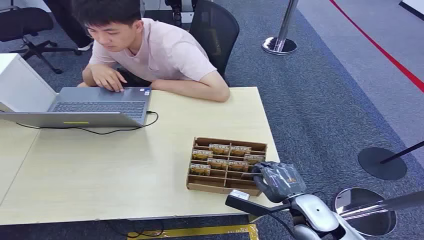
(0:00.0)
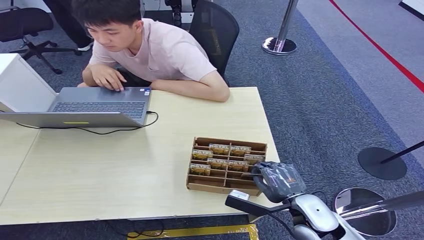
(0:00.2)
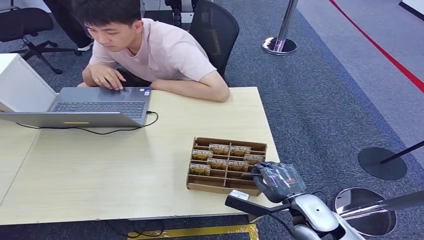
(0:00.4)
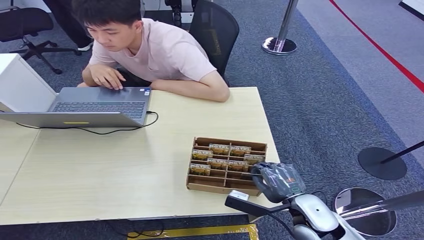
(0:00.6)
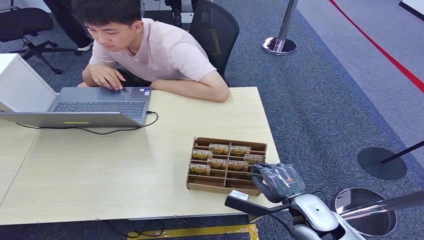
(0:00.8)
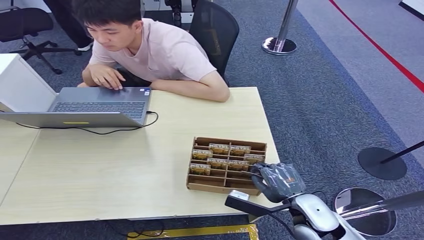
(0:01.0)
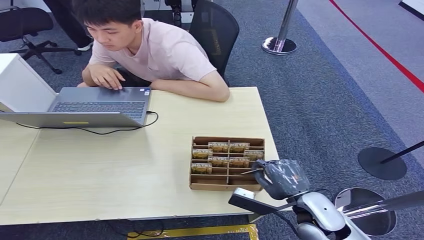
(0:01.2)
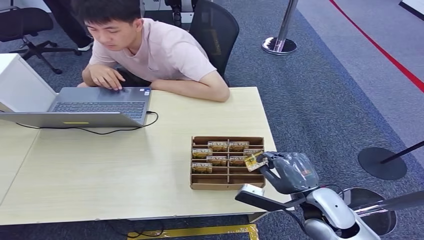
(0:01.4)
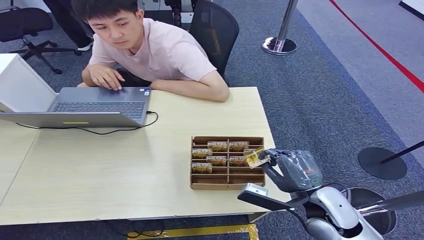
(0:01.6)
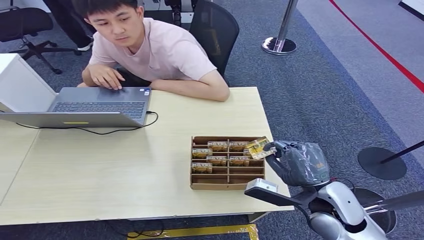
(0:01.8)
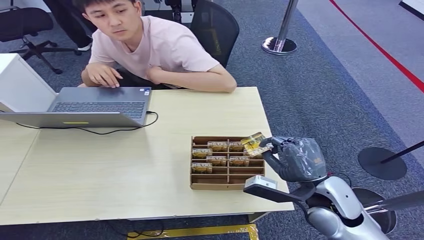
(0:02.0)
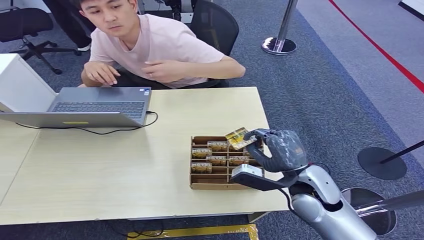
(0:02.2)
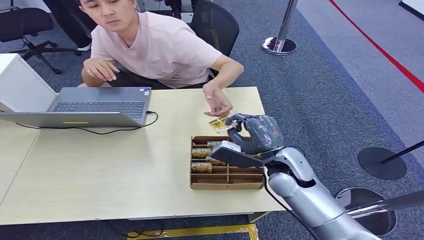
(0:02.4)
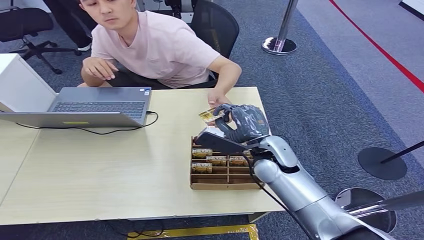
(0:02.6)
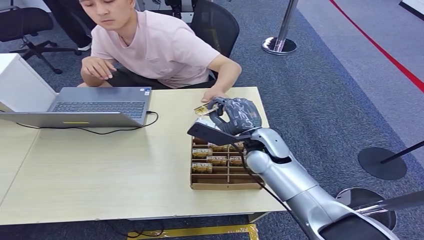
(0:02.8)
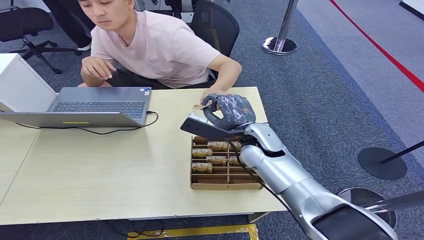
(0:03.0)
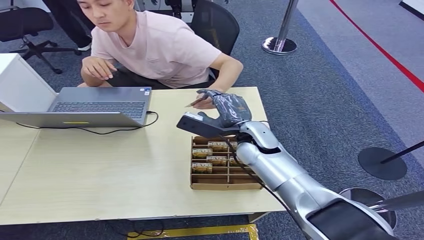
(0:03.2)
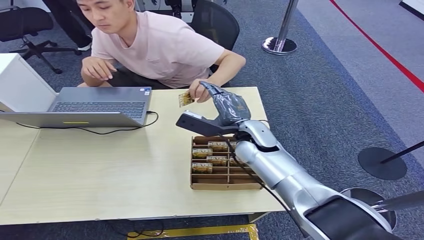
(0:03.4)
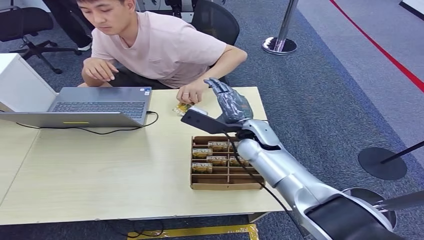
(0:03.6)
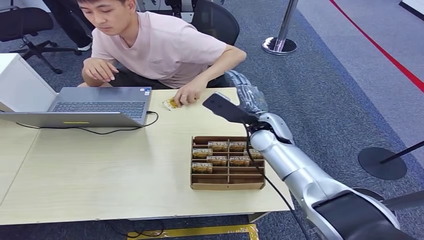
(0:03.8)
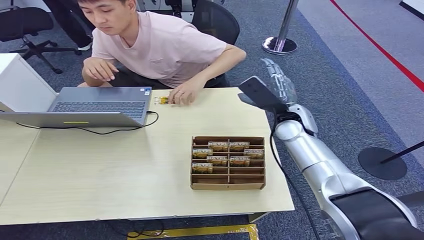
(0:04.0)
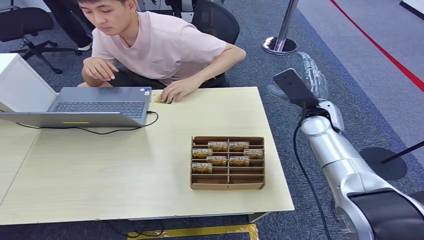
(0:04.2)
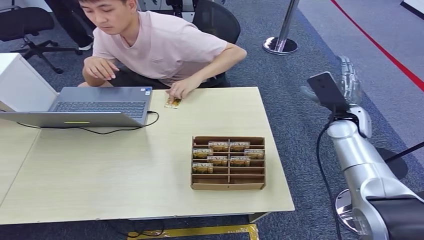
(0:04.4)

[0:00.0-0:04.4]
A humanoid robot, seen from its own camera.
Task of the whole recording: Pick up the card and hand it to the target person.
Step, 0:00.0 to 0:02.0: Pick up the key card from the card box.
Step, 0:02.2 to 0:04.4: Hand the key card to the target.
0:01.4 to 0:03.0: The right hand heads forward and to the left, covering about 20 cm.
